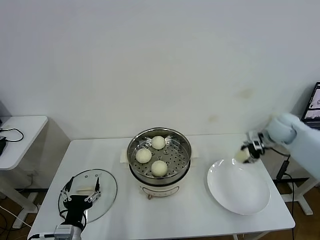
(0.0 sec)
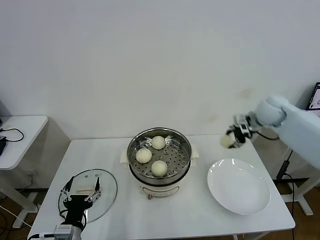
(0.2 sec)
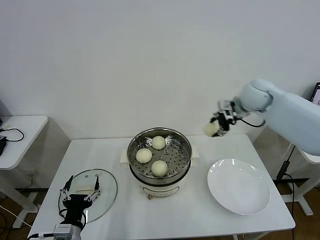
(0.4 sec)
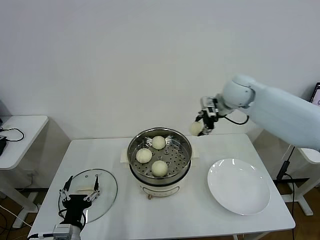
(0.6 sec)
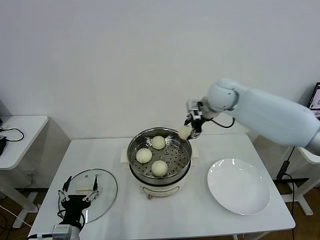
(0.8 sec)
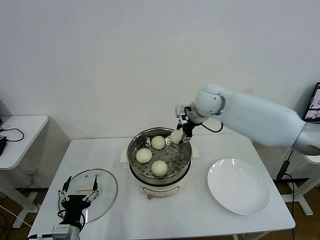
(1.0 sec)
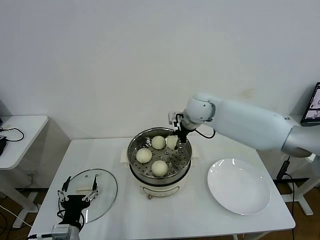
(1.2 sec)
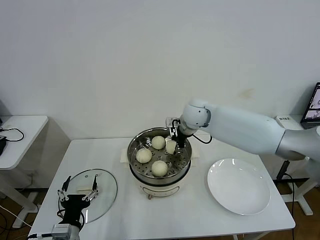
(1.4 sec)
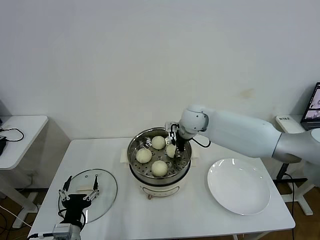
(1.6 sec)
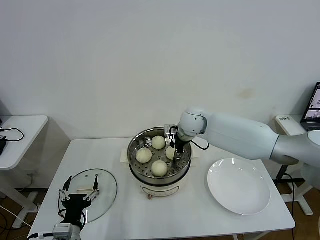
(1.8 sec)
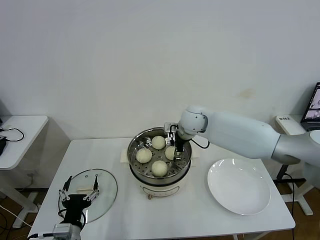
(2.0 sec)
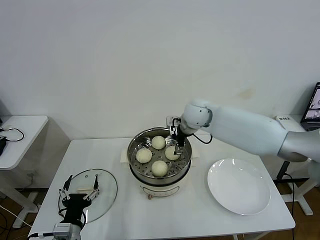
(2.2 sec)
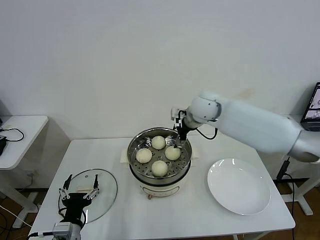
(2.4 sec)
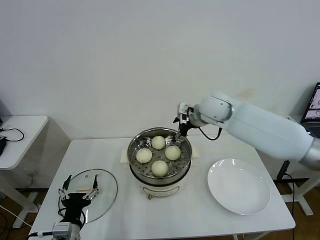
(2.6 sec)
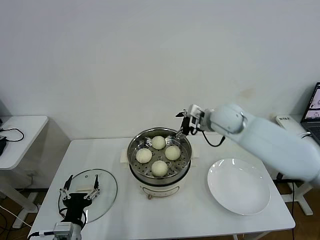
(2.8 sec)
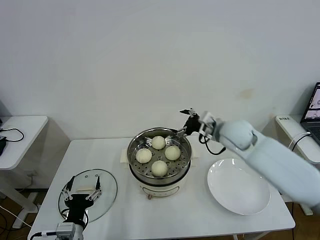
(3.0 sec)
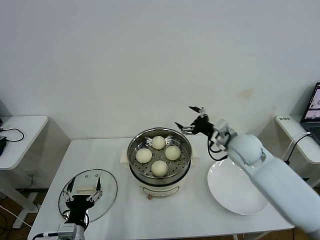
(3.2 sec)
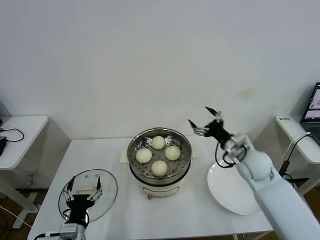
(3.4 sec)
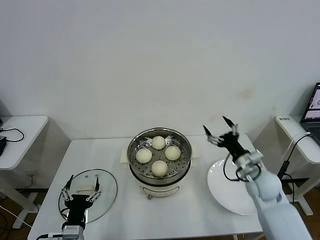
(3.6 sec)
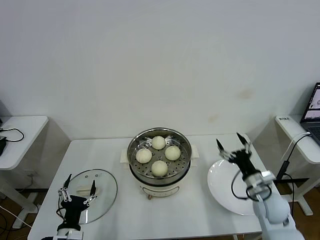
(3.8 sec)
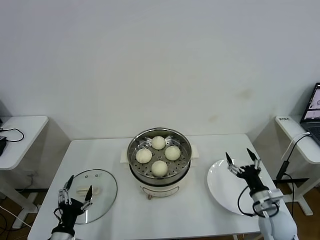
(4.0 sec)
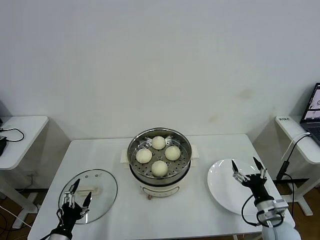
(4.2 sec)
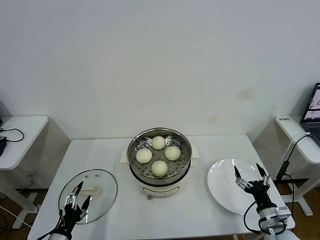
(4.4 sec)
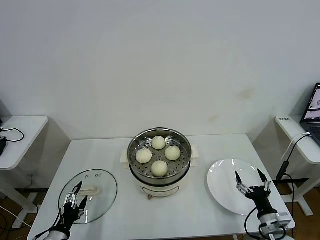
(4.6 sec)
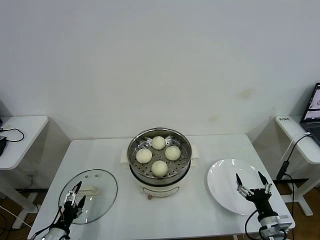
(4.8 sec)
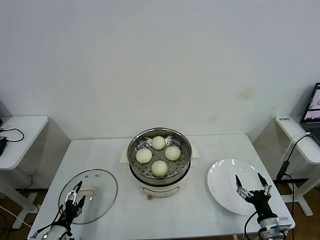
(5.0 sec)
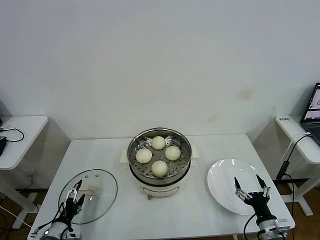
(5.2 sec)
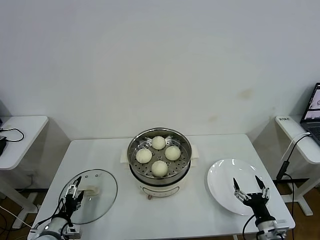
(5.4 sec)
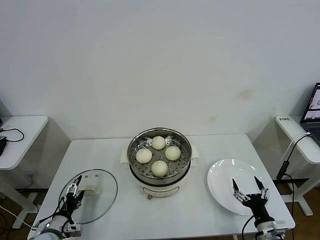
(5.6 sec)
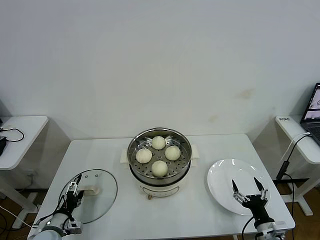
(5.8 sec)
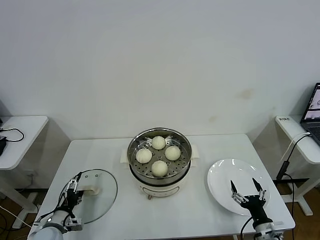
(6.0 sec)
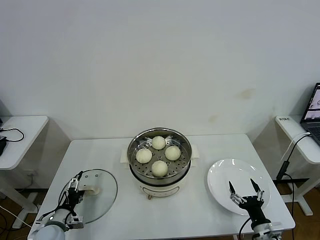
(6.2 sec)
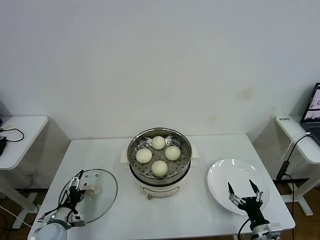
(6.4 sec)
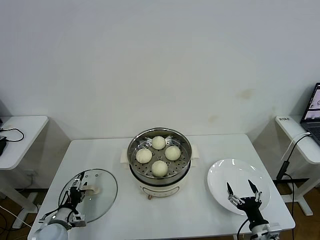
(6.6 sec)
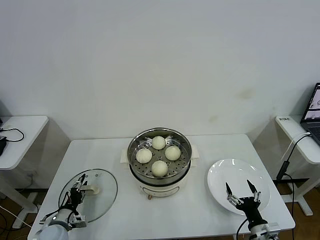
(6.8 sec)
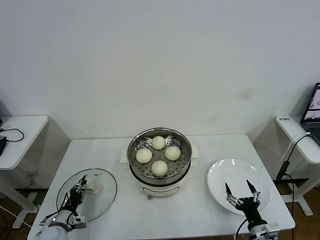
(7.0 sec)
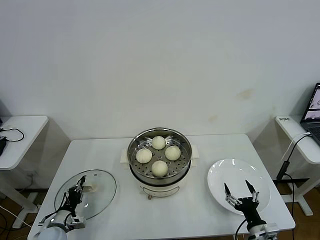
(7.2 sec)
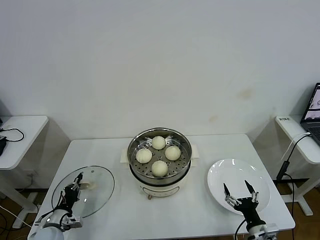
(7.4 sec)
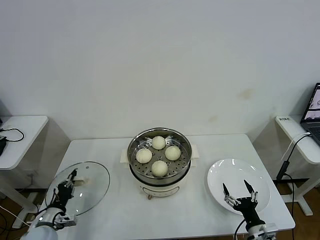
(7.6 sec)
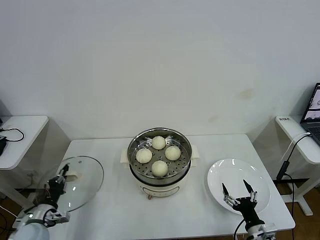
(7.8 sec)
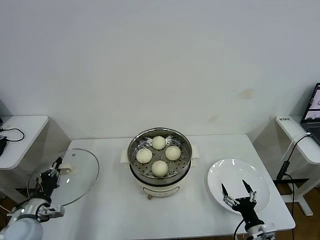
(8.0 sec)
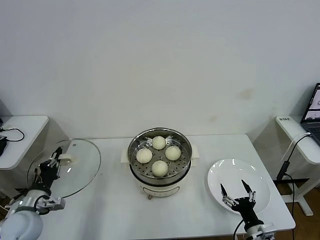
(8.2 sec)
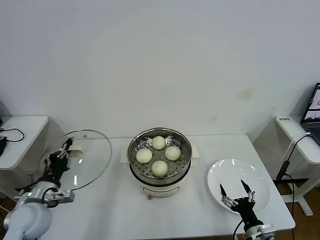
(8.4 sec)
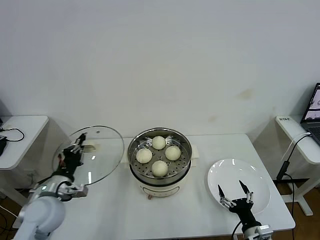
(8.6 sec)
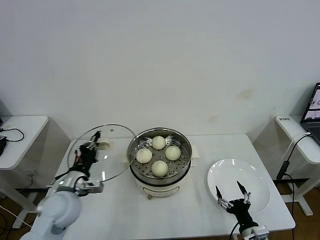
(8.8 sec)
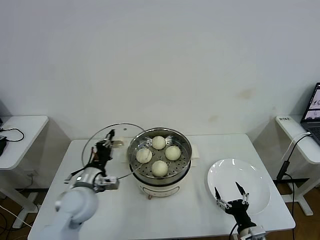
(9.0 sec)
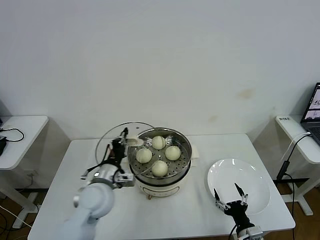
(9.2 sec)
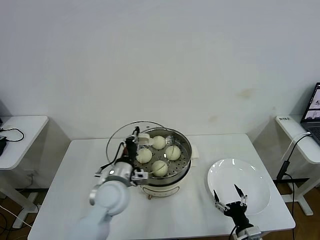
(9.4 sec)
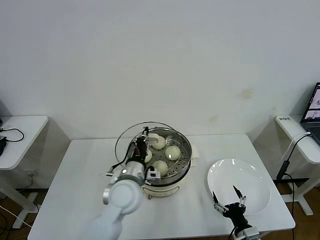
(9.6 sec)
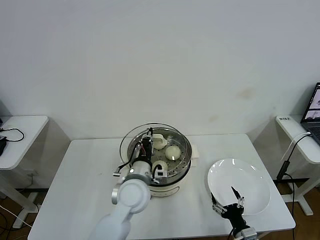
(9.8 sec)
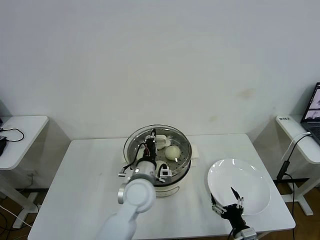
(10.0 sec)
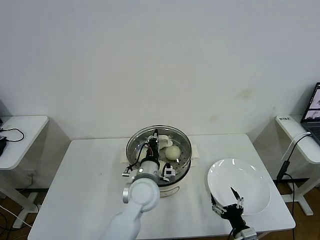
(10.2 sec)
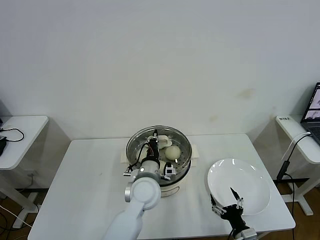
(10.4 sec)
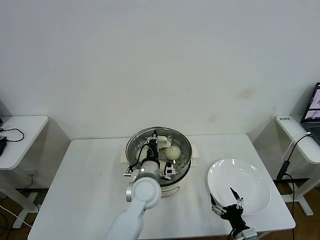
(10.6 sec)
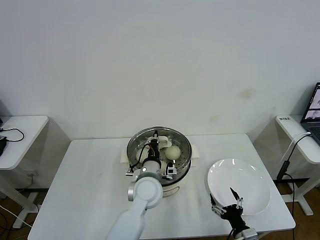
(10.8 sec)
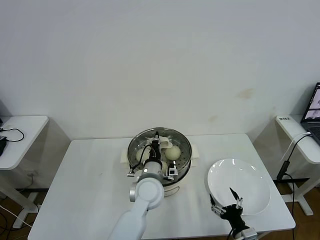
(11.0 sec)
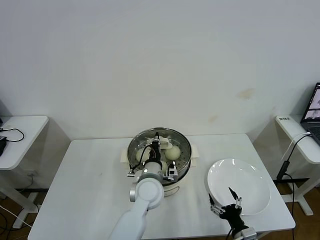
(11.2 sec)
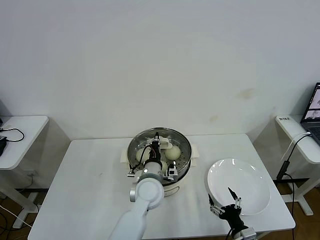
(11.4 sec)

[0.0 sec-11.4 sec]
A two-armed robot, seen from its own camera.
Task of the whole recording: take steamed baozi put them in steamer then cover it.
Step, 0.0 sec to 2.0 sec: Place the baozi on the steamer with right gripper.
Step, 2.2 sec to 7.2 sec: Grasp the pot lid with left gripper.
0.0 sec to 1.4 sec: The right gripper heads to the left, covering some 30 cm.
1.4 sec to 2.8 sec: The right gripper travels to the right by some 5 cm, and opens up.
2.8 sec to 4.2 sec: The left gripper moves to the left, roughly 5 cm. The right gripper shifts some 40 cm backward, downward and to the right.
4.2 sec to 5.6 sec: The right gripper shifts some 5 cm backward, while the left gripper moves forward and to the left, about 10 cm.
5.6 sec to 7.2 sec: The left gripper closes up.
7.2 sec to 8.6 sec: The left gripper moves upward, about 20 cm.
8.6 sec to 10.0 sec: The left gripper is displaced to the right by about 25 cm.
10.0 sec to 11.4 sec: The left gripper moves roughly 5 cm.

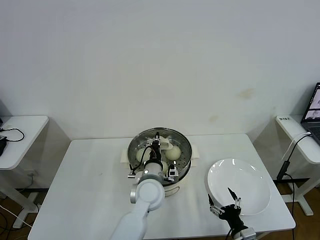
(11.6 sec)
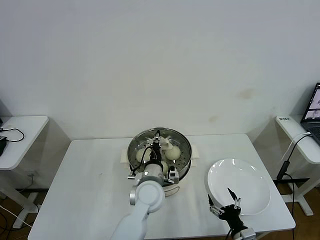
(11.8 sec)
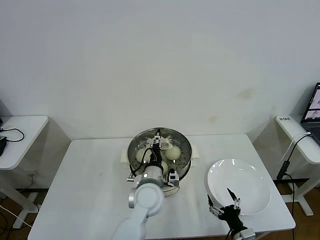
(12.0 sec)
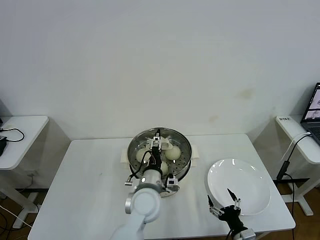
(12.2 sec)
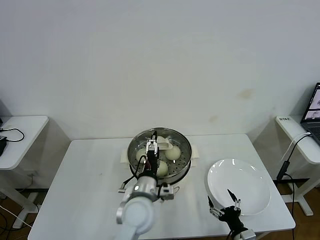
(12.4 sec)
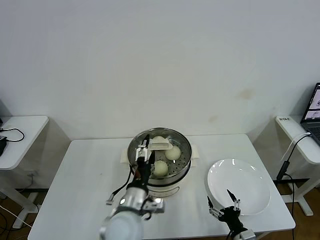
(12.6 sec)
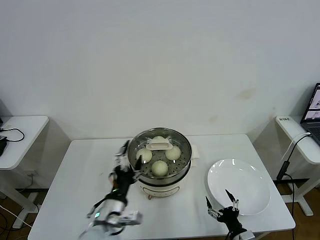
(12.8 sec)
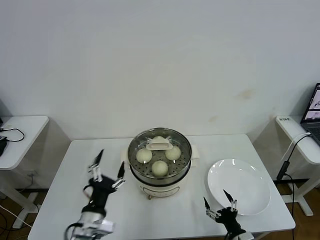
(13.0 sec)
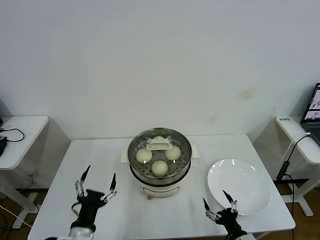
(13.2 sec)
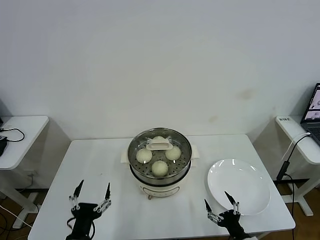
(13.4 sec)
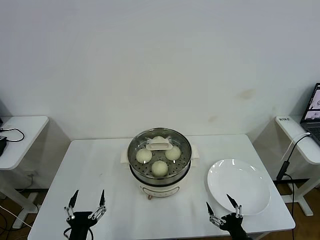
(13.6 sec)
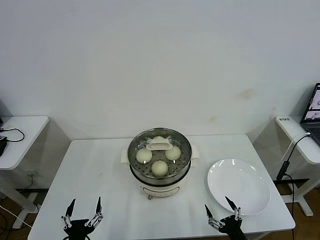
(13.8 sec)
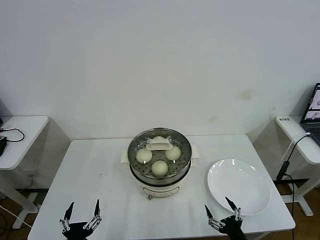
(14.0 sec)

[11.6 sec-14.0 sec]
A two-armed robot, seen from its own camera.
Task of the whole recording: take steamed baozi put them in steamer then cover it.
11.6 sec to 12.8 sec: The left gripper goes about 15 cm backward and to the left, and opens.
12.8 sec to 14.0 sec: The left gripper heads backward, to the left and downward, covering about 20 cm; the right gripper ends up approximately 5 cm from where it was.
